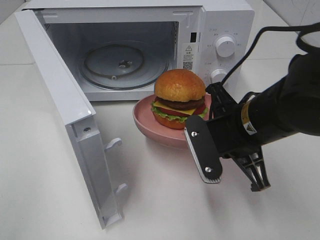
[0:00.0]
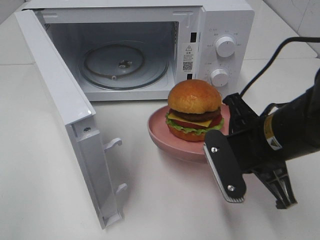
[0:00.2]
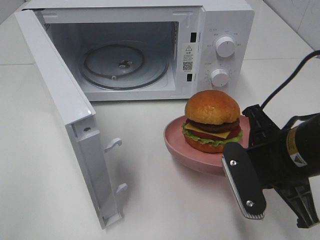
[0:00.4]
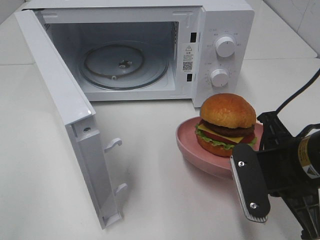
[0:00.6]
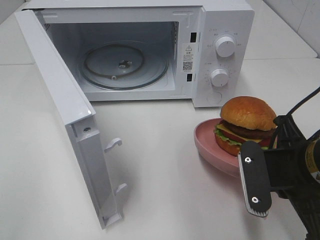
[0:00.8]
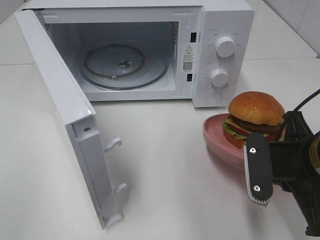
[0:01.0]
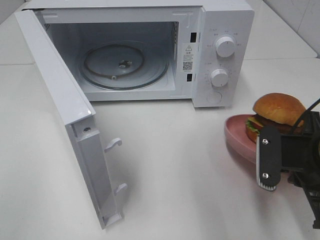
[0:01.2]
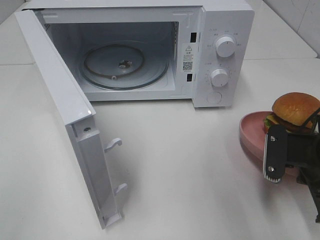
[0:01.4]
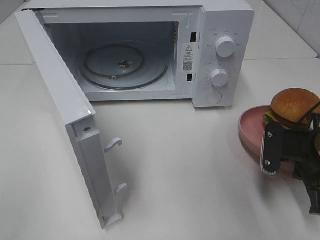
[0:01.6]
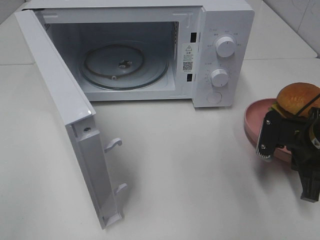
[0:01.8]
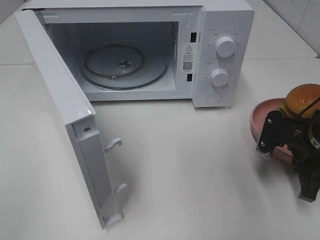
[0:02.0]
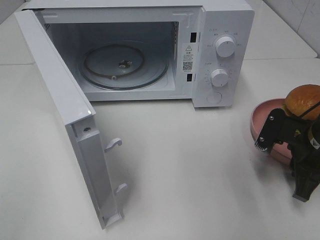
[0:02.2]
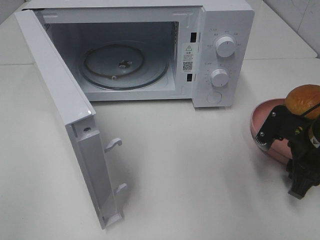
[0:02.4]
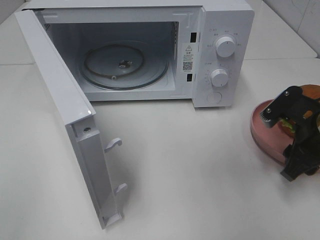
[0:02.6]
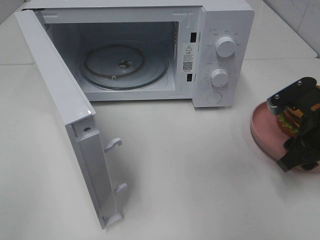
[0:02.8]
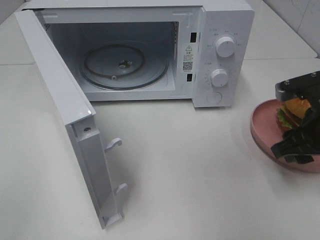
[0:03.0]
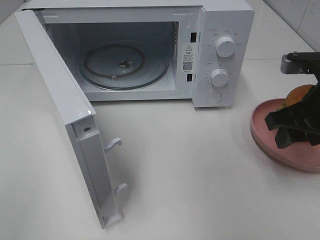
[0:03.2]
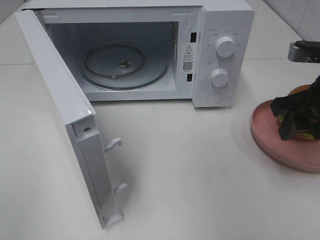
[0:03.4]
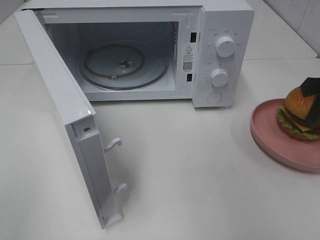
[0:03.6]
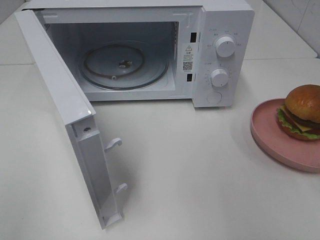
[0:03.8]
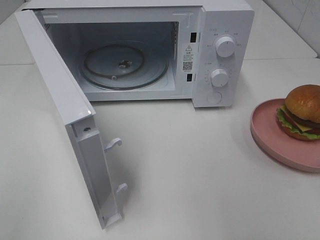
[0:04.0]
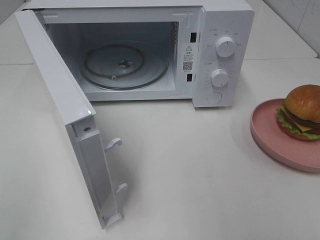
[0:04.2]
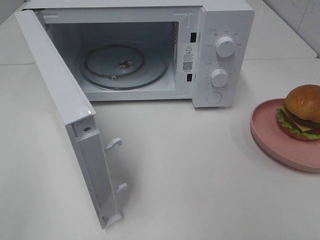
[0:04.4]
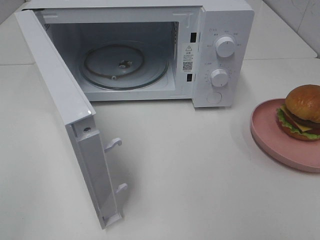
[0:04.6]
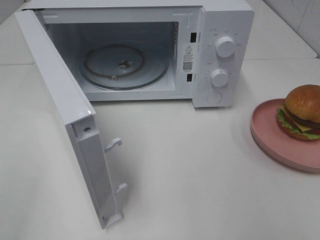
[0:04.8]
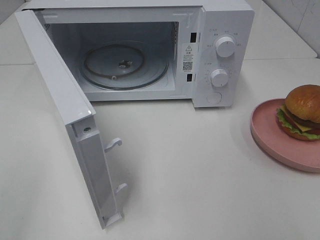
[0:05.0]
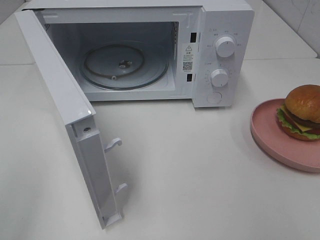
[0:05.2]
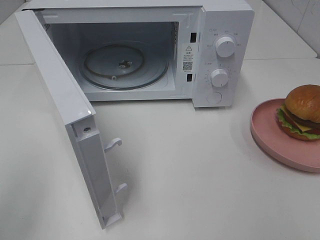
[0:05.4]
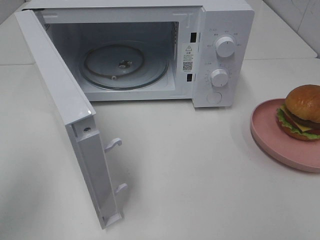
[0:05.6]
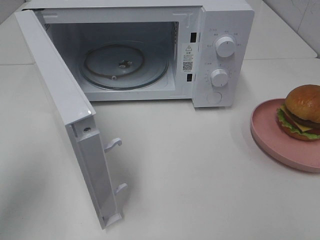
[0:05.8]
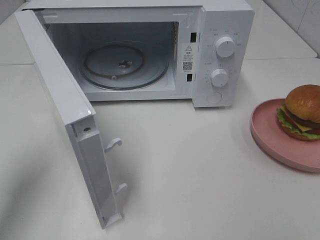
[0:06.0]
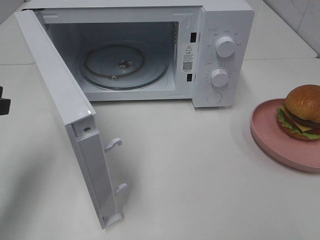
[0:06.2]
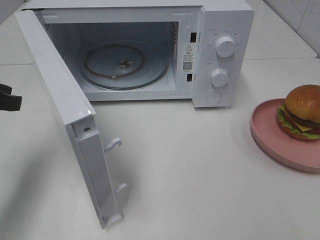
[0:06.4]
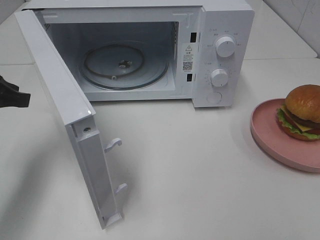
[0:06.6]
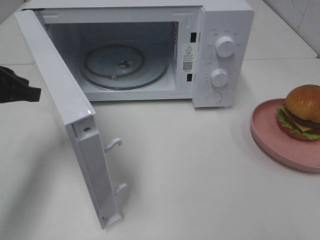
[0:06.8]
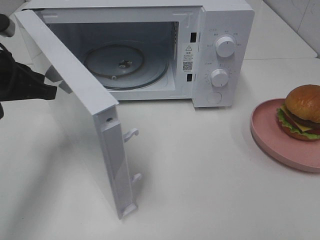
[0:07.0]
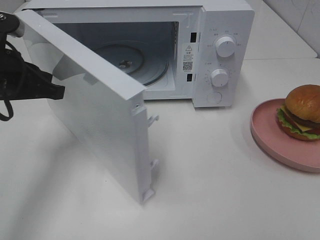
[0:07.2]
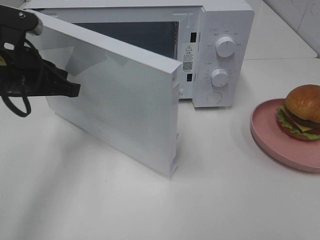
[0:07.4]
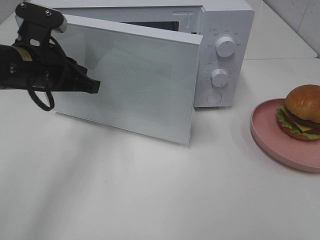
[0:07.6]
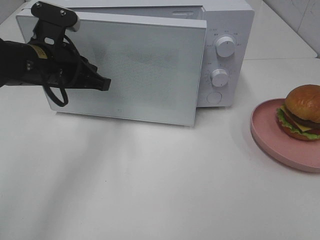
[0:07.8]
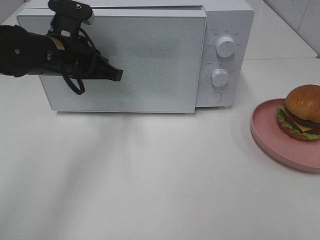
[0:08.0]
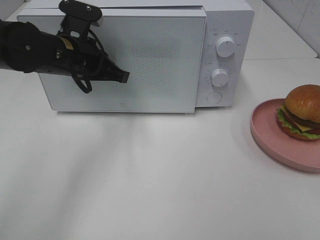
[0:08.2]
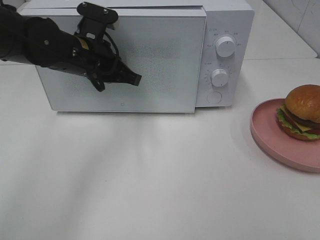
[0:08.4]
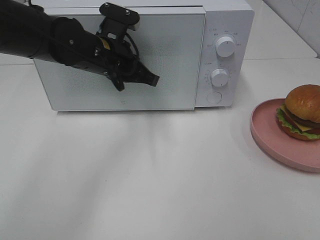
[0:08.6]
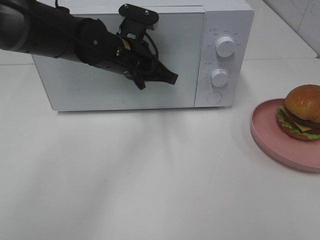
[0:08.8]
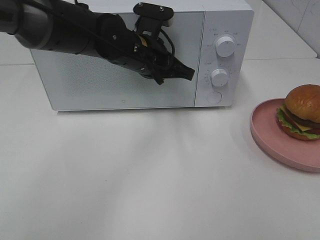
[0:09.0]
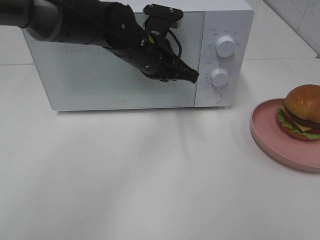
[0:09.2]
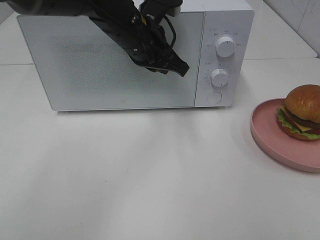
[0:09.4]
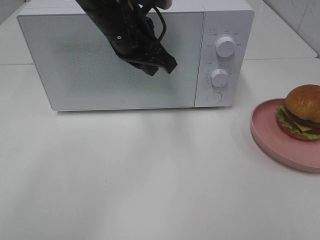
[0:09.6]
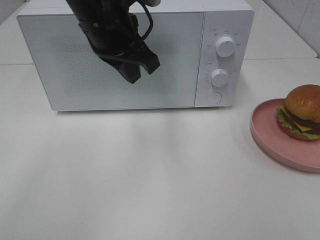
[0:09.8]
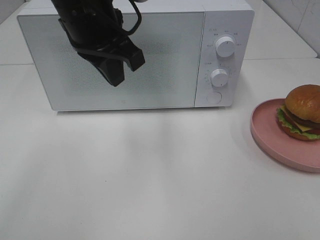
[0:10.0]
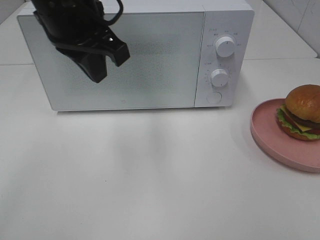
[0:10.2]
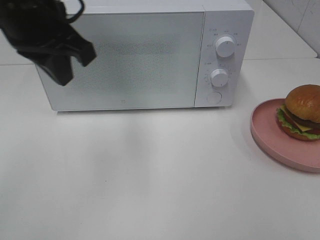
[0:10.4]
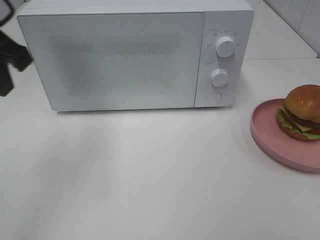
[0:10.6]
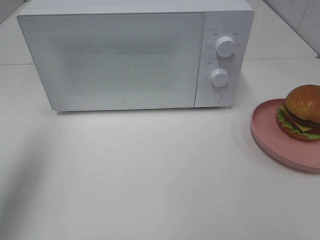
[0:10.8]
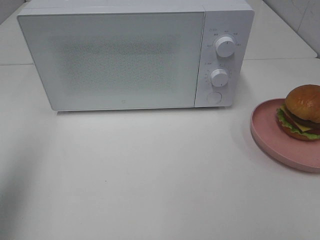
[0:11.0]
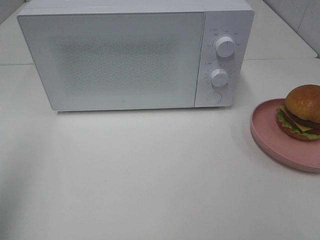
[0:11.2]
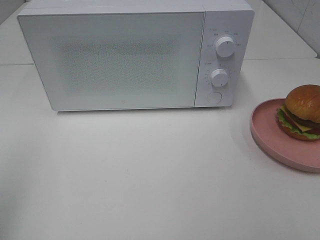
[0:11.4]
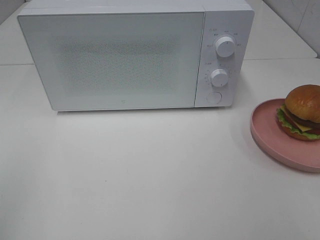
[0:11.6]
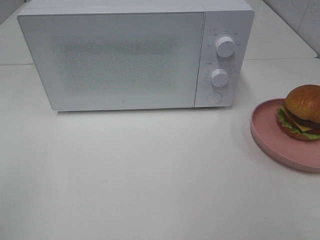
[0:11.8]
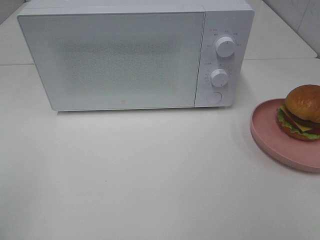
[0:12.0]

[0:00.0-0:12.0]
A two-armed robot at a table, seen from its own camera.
Task of the whole recording: Heat the burger.
Step, 0:00.0 to 0:02.2: Right hand: place the plate on the table.
Step, 0:02.4 to 0:09.4: Left hand: close the microwave door.
0:00.0 to 0:01.6: The right gripper travels to the right and downward by about 15 cm.
0:01.6 to 0:03.0: The right gripper is displaced upward by some 5 cm, and opens.
0:03.0 to 0:04.4: The right gripper heads backward and upward, covering roughly 20 cm.
0:04.4 to 0:06.0: The left gripper moves forward, roughly 20 cm.
0:06.0 to 0:07.6: The left gripper heads forward and to the right, covering about 15 cm.
0:07.6 to 0:09.0: The left gripper moves to the right and forward, approximately 15 cm, and opens its fingers.
0:09.0 to 0:10.4: The left gripper heads upward, to the left and backward, covering some 20 cm, and closes.
0:10.4 to 0:12.0: The left gripper goes some 30 cm backward and to the left.

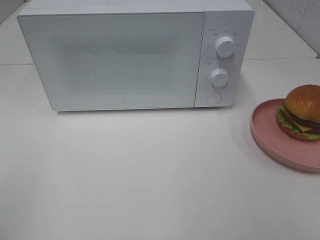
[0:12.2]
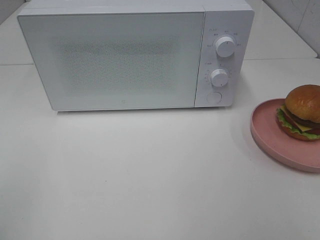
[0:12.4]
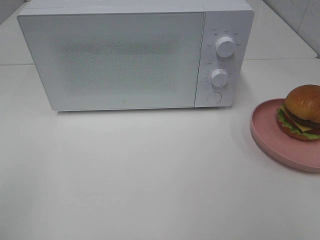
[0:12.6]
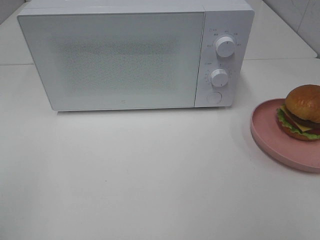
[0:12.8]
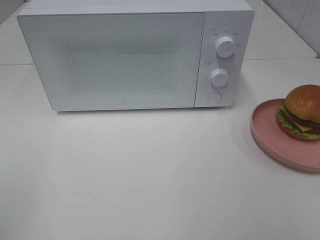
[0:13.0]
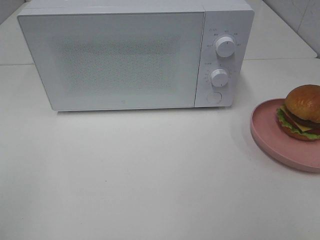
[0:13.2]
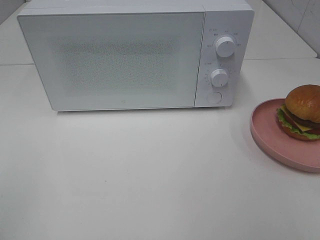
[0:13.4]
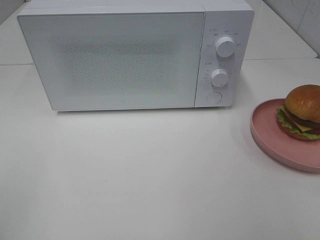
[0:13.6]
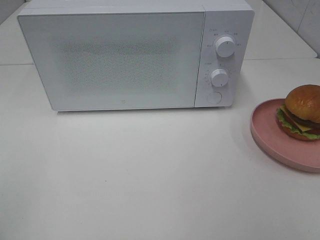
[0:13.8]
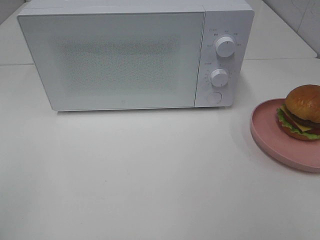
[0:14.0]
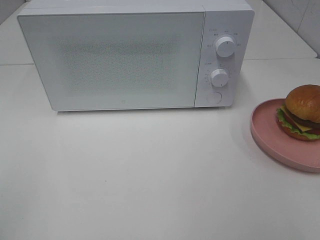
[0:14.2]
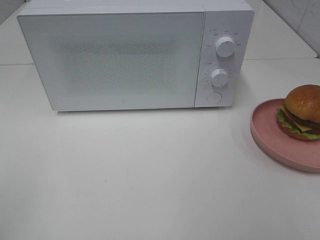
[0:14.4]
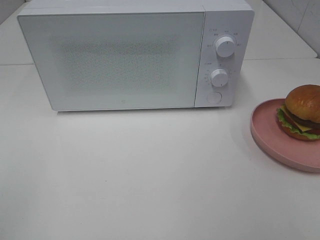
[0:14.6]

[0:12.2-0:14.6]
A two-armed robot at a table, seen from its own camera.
Task of the whole recording: Heat the burger.
0:13.4 to 0:14.6: Neither gripper changes place.

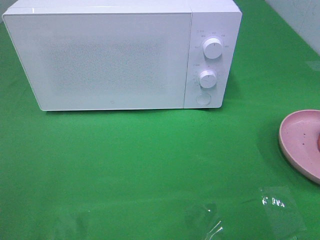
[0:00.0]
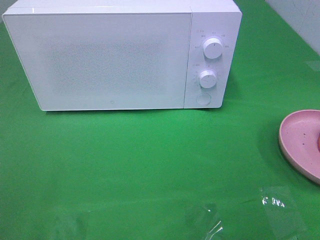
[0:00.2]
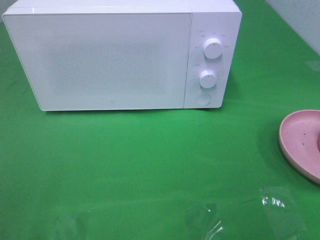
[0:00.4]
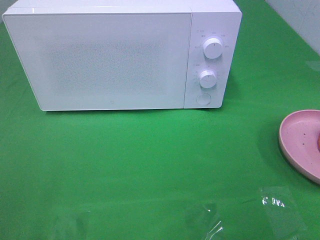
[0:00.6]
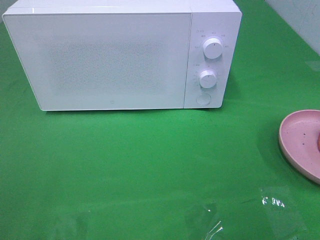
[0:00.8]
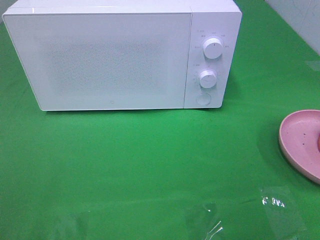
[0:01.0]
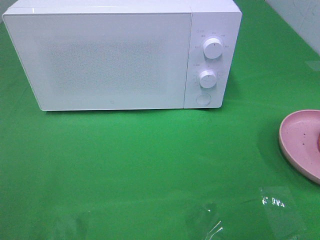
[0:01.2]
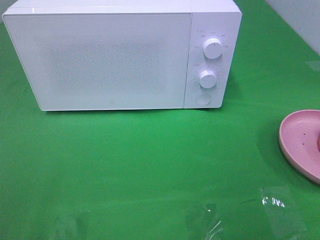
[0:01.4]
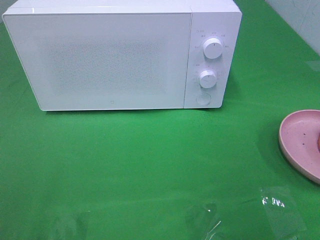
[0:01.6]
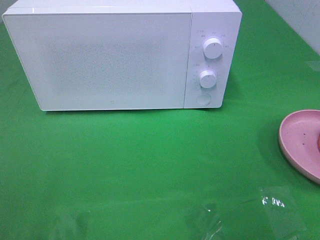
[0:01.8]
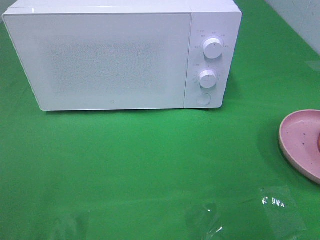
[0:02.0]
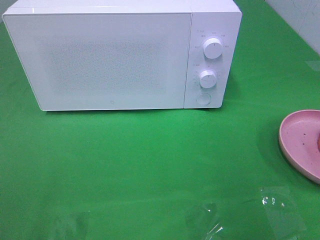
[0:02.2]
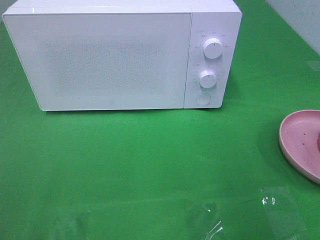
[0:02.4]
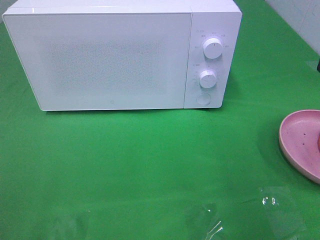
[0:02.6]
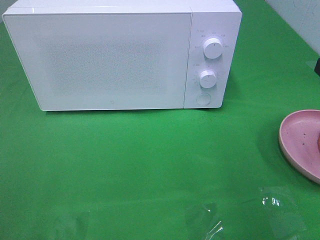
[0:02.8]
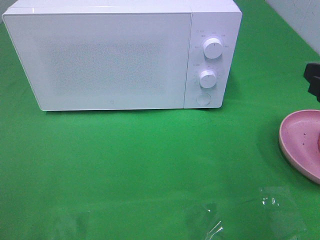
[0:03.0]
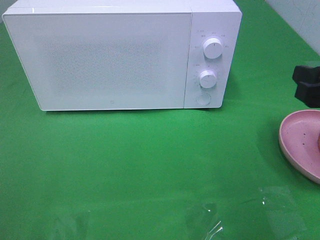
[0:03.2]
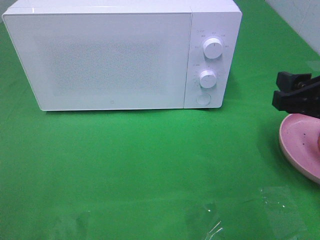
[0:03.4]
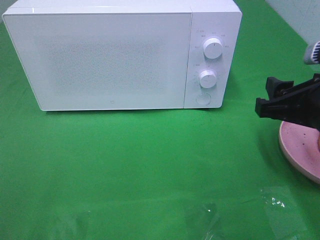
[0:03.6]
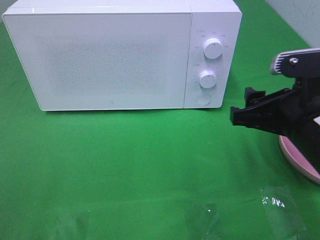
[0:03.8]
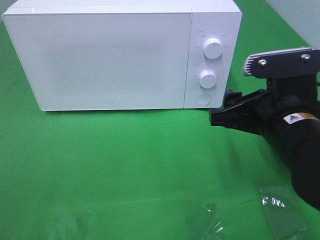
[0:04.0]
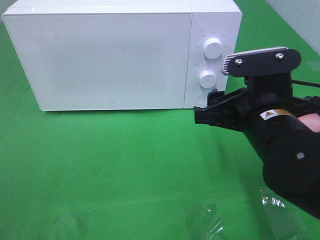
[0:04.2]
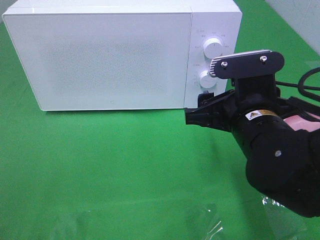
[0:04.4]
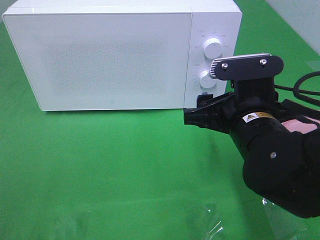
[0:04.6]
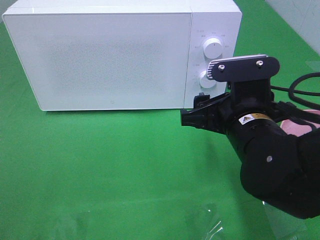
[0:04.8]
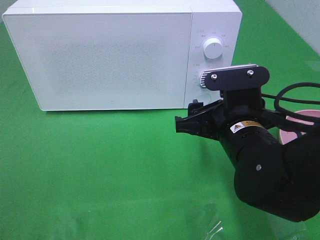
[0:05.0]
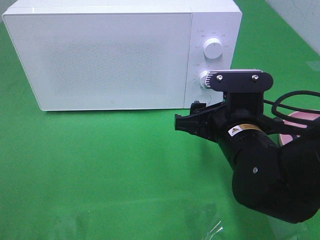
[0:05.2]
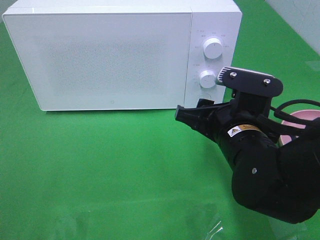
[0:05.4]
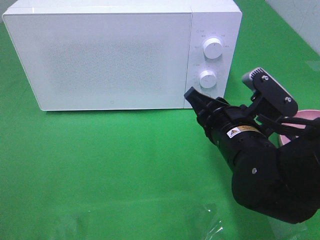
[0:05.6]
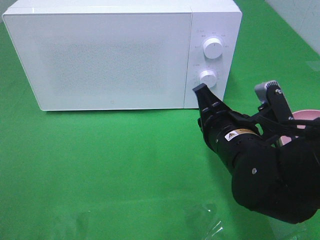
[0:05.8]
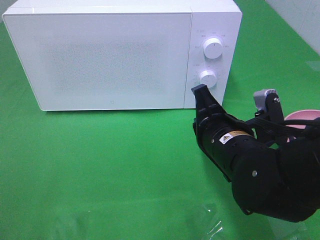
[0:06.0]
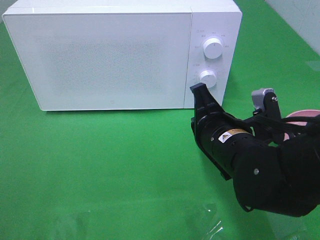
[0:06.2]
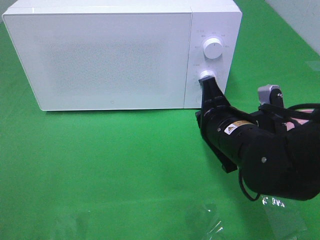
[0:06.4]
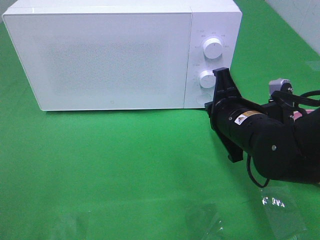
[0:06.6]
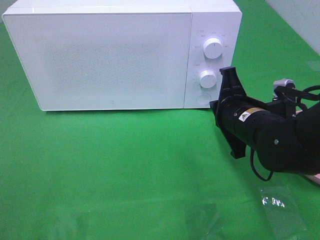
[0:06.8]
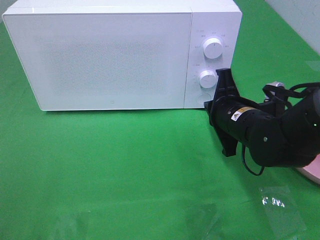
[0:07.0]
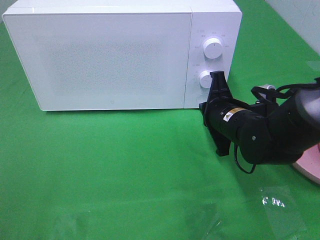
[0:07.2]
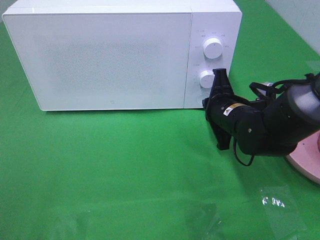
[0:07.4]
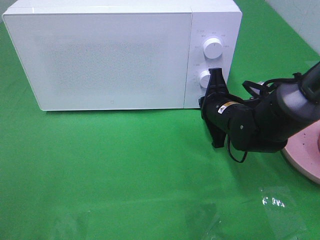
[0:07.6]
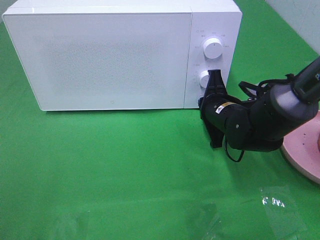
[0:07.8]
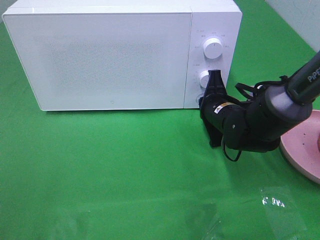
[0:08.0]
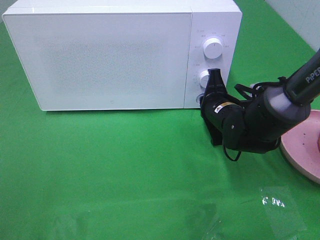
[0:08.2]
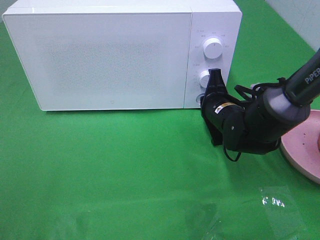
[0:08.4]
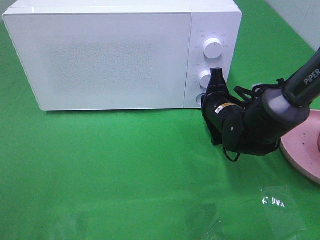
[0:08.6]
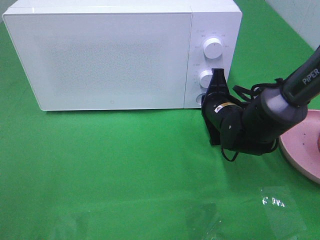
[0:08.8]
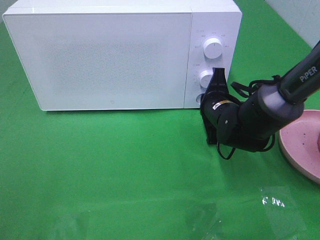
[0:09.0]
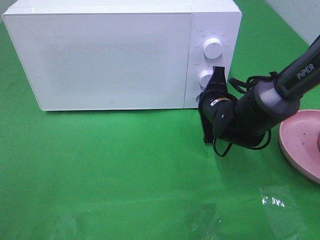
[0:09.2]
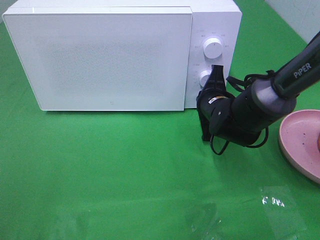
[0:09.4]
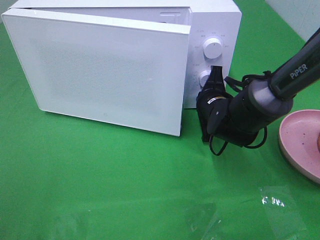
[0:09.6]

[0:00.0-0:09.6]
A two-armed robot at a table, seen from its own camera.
Task of the whole recording: Heat the burger.
0:01.6 to 0:03.2: The right gripper is displaced forward and downward by some 15 cm.
0:03.2 to 0:04.8: The right gripper travels to the left and downward by about 15 cm.
0:04.8 to 0:06.4: The right gripper closes up.
0:06.4 to 0:08.0: The right gripper heads forward and downward, covering roughly 10 cm.
0:08.0 to 0:09.6: The grippers make only small movements.
